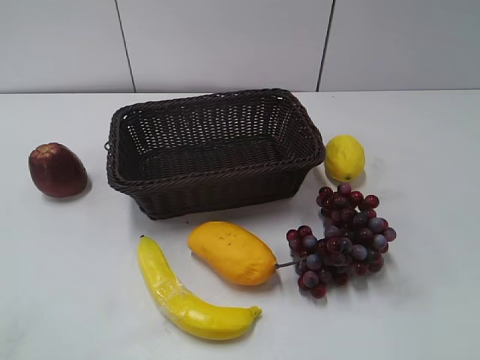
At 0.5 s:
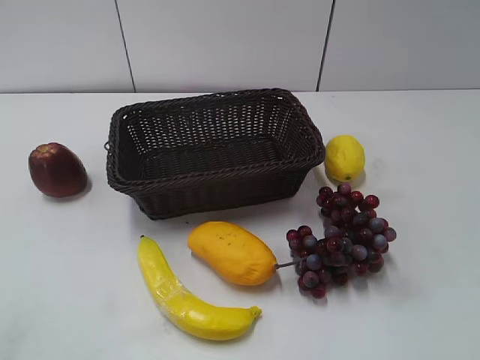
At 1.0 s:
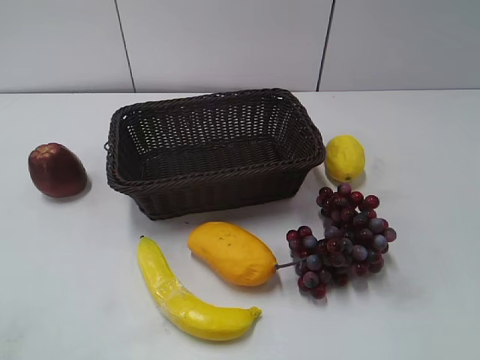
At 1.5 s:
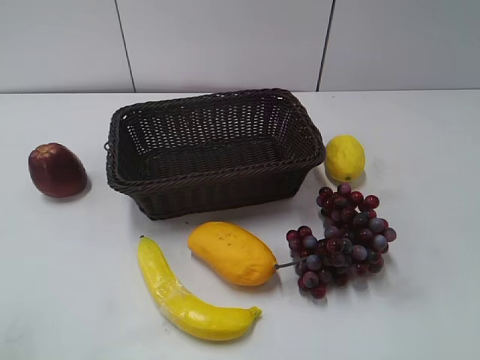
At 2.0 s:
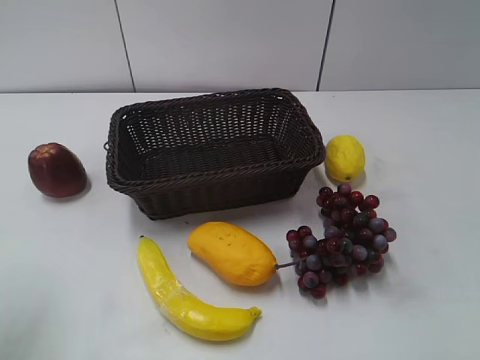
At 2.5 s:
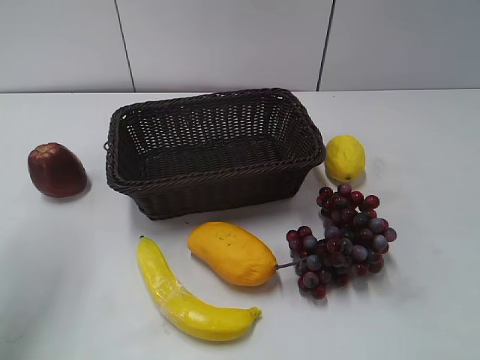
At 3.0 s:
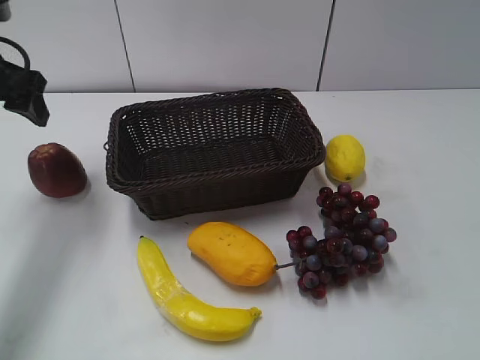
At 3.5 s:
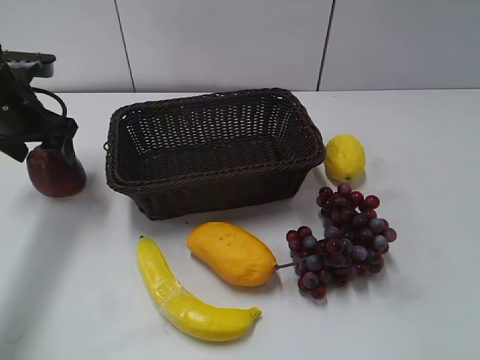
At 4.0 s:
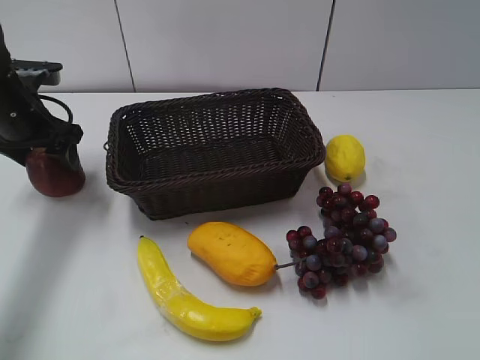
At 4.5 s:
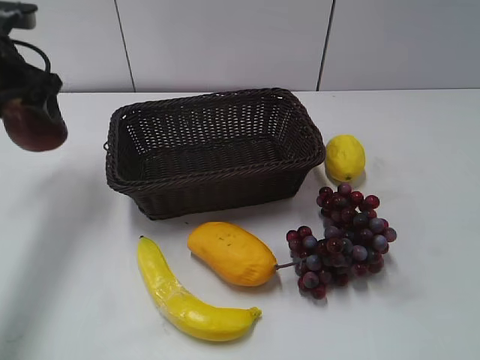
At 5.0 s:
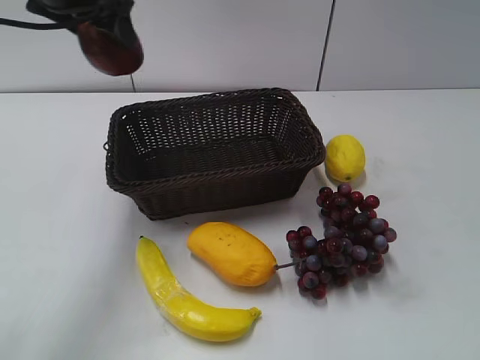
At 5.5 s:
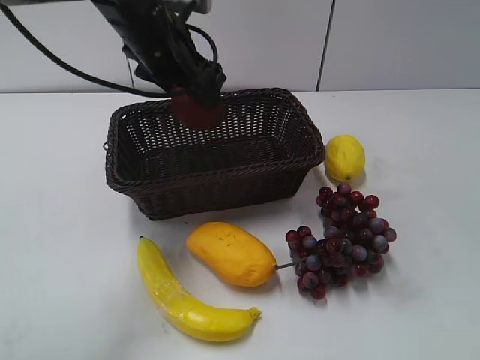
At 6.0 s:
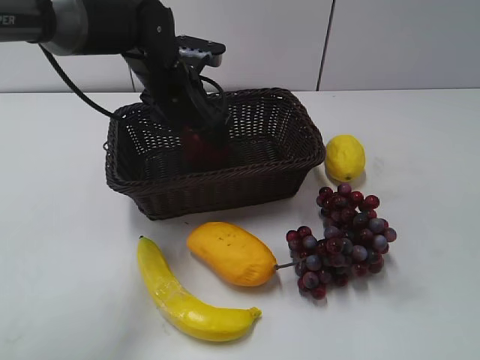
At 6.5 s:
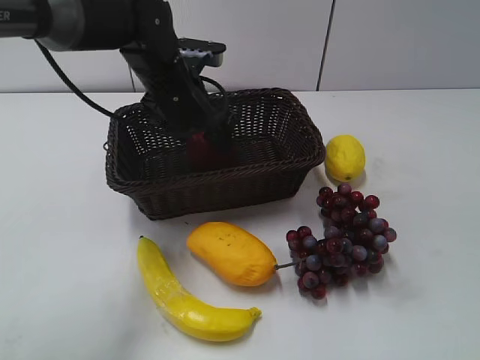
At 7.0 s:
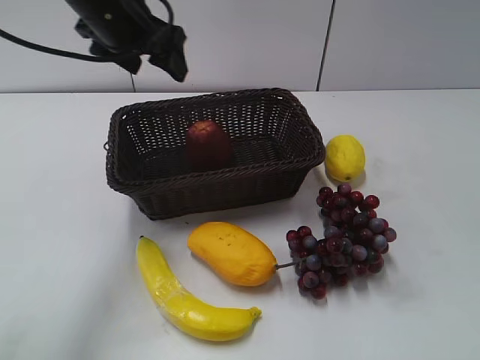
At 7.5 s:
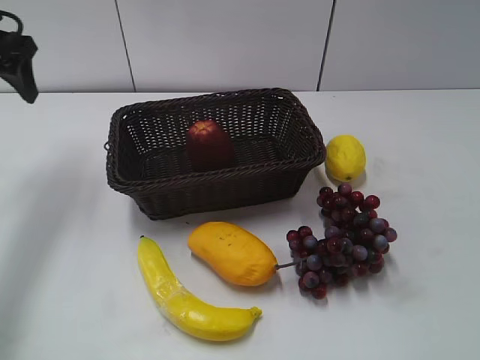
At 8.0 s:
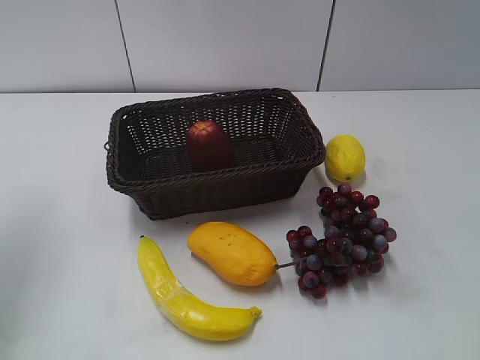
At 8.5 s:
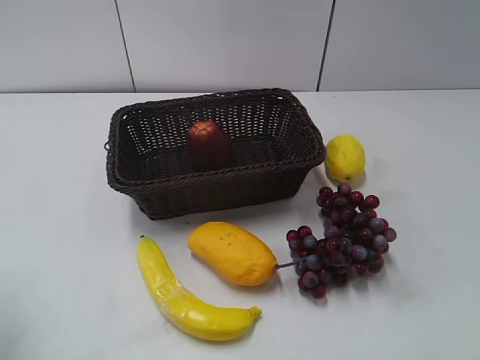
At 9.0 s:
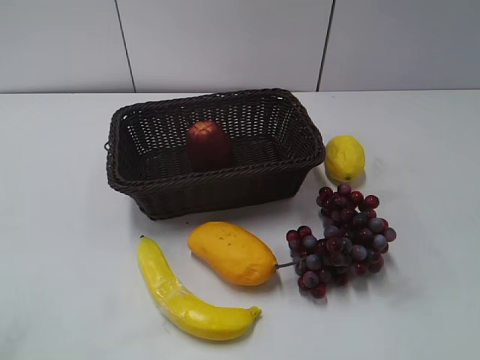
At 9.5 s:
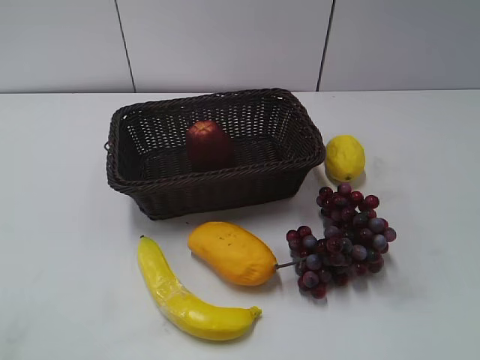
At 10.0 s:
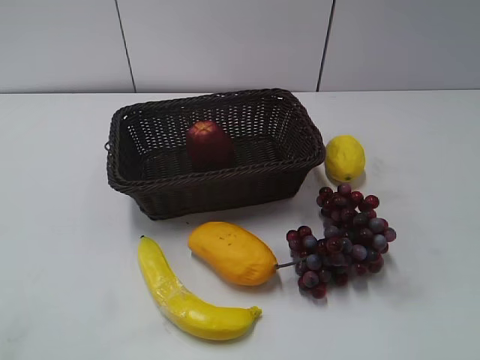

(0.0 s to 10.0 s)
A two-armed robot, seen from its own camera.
Step, 3.0 s - 4.0 s: Grasp the apple with left gripper.
Step, 4.5 s - 6.5 s: Place the apple in the basket with left gripper.
2.0 s - 4.0 s: The left gripper travels forward and downward by about 30 cm.
4.0 s - 6.0 s: The left gripper shifts approximately 20 cm to the right.
6.0 s - 8.0 s: The left gripper is displaced to the left, upward and backward by about 30 cm, and opens and closes again.
8.0 s - 10.0 s: The left gripper travels backward by roughly 30 cm.
